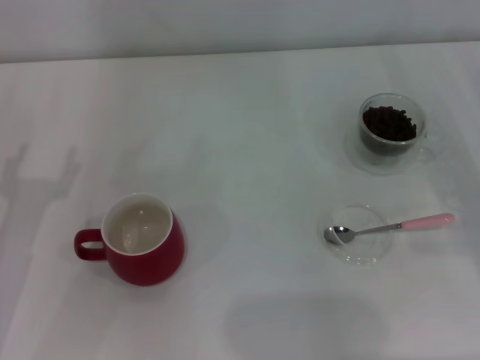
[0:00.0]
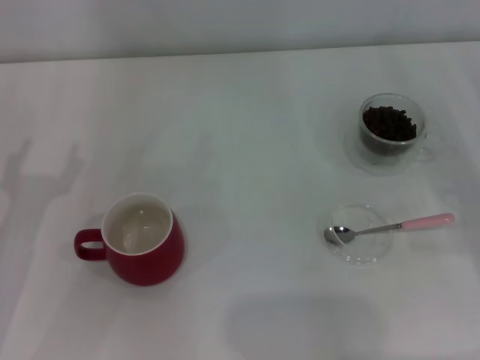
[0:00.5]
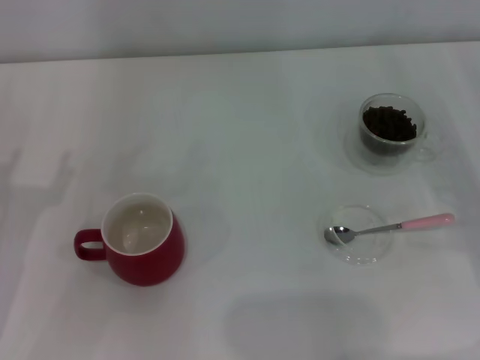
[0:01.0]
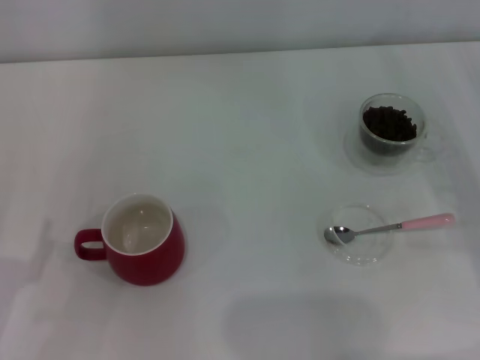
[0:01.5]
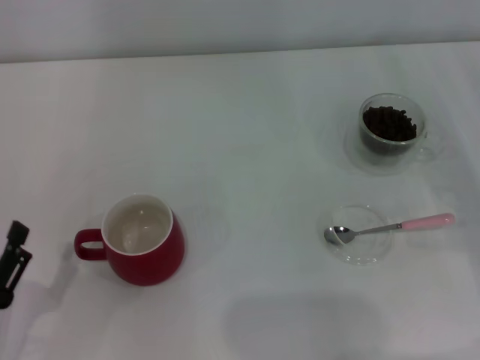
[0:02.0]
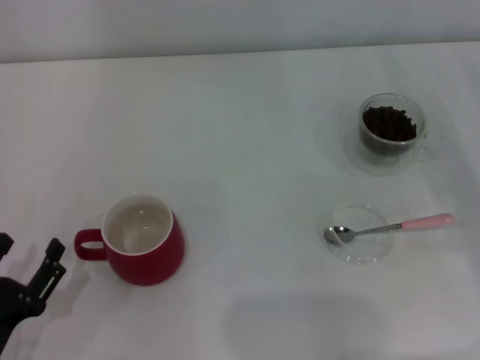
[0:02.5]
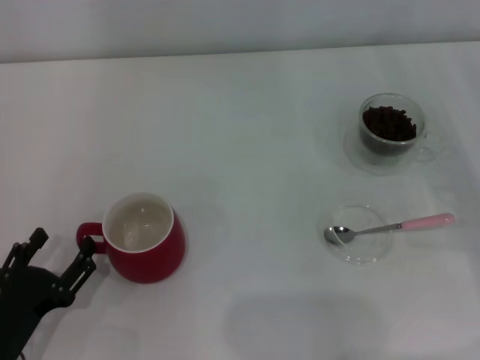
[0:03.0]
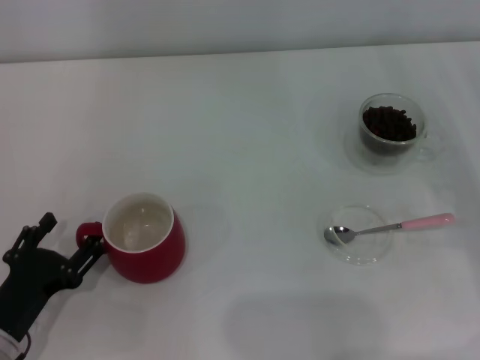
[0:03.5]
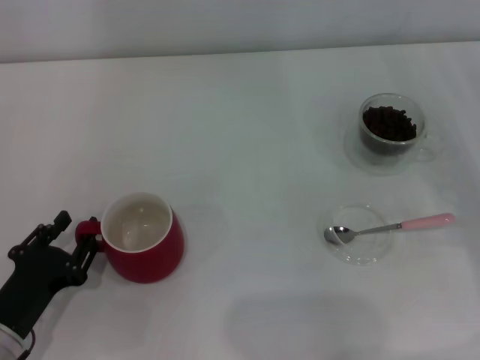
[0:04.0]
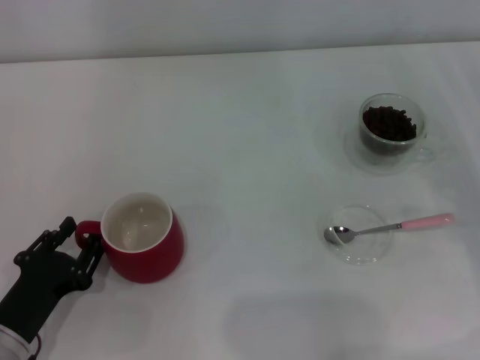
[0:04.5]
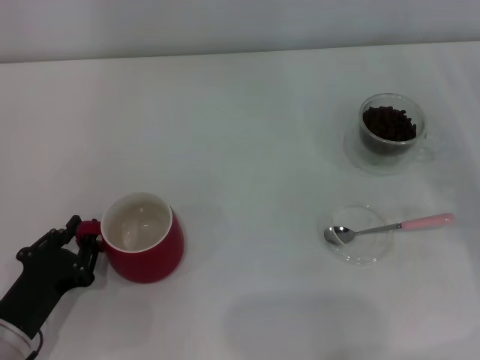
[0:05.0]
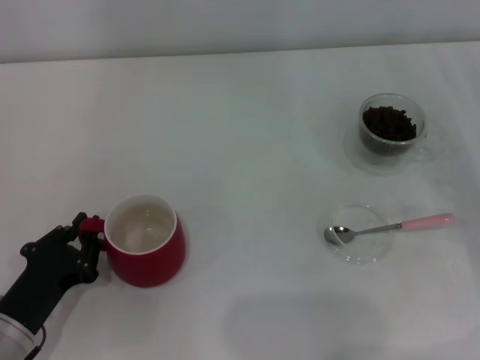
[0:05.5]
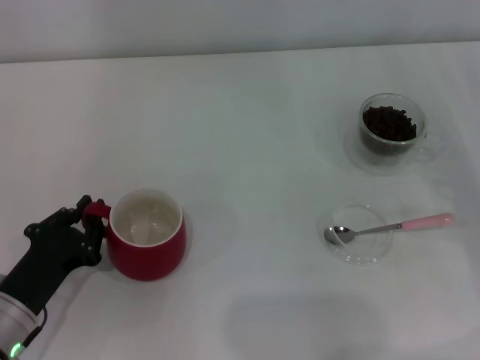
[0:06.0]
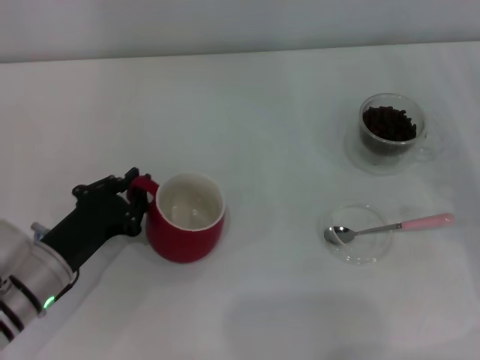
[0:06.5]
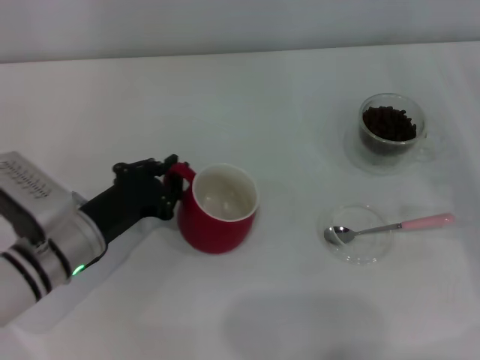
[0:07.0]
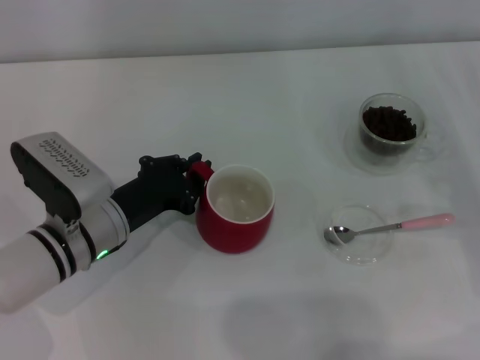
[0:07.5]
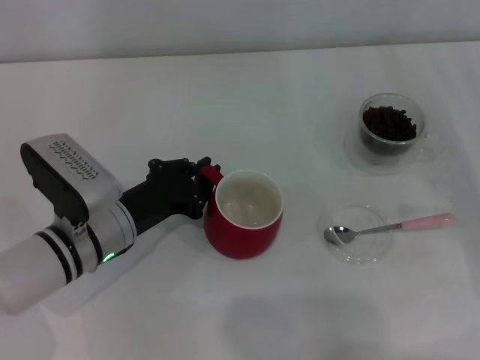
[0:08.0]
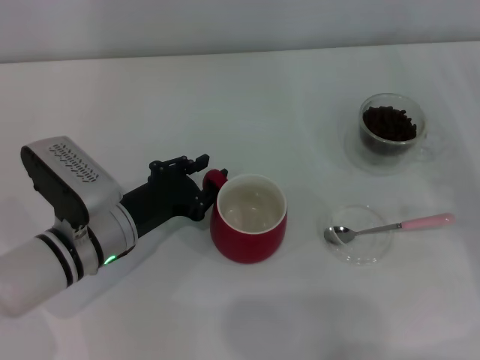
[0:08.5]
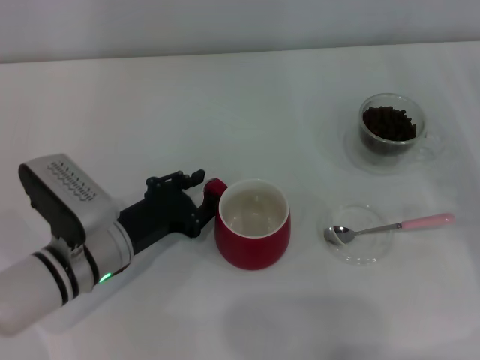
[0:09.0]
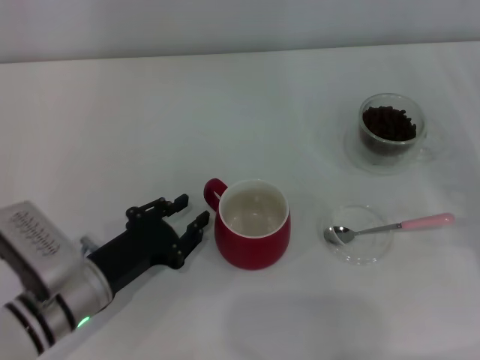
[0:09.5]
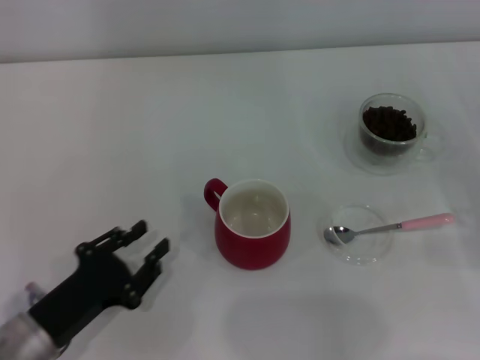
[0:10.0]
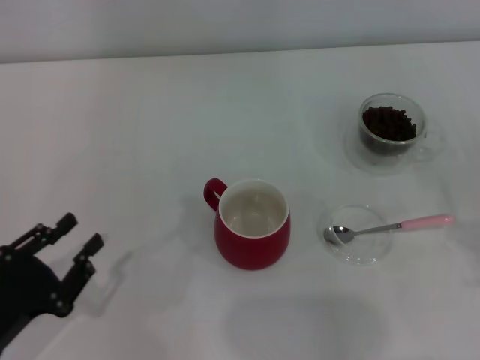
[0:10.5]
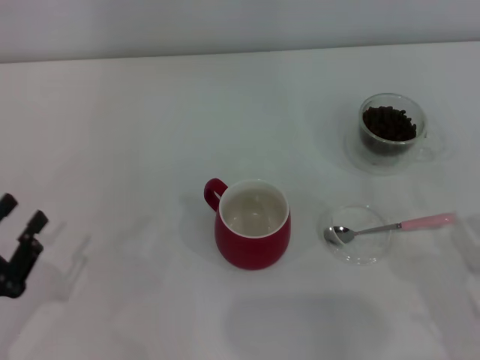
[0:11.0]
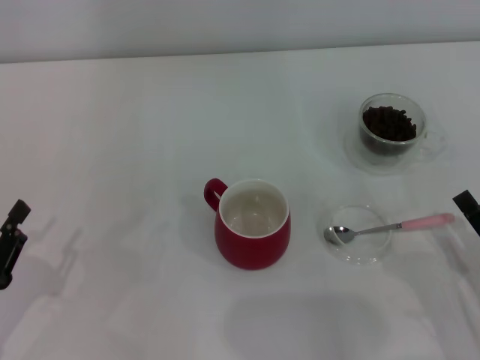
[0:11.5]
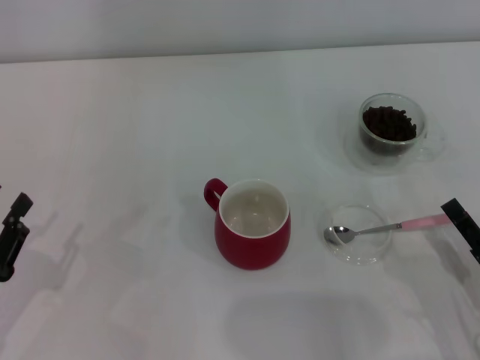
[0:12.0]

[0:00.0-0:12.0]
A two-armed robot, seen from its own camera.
Task of the whole recording: Use a pink spoon to take out the coffee beans from the glass and pour them into the red cup.
Step, 0:00.0 to 0:09.5: Move the cup to the center of view with the left gripper.
0:00.0 to 0:02.0: The left gripper is displaced backward and downward by some 15 cm.
0:02.0 to 0:04.0: The left gripper travels forward by roughly 5 cm.
0:04.0 to 0:06.0: The left gripper closes.
0:06.0 to 0:08.0: The left gripper moves forward and to the right, approximately 15 cm.
0:08.0 to 0:10.0: The left gripper shifts roughly 15 cm backward and to the left, and opens its fingers.
0:10.0 to 0:12.0: The left gripper is displaced to the left by roughly 10 cm, while the right gripper heads backward and to the left, covering roughly 15 cm.

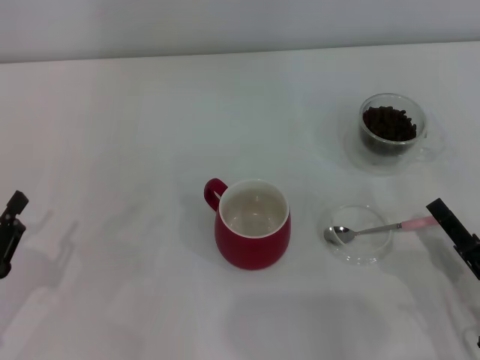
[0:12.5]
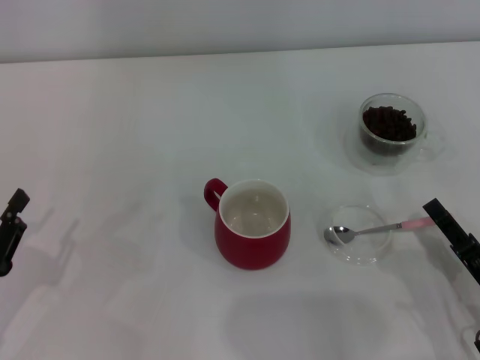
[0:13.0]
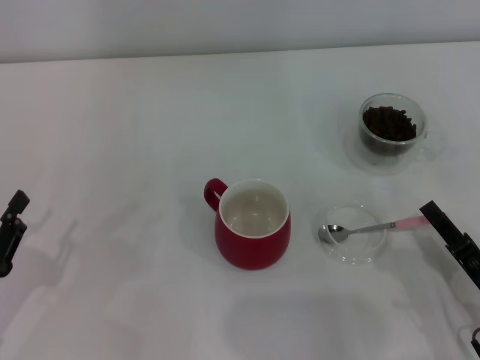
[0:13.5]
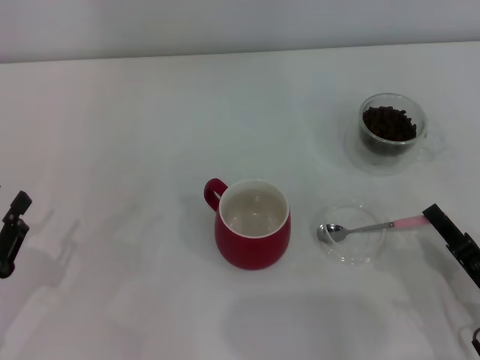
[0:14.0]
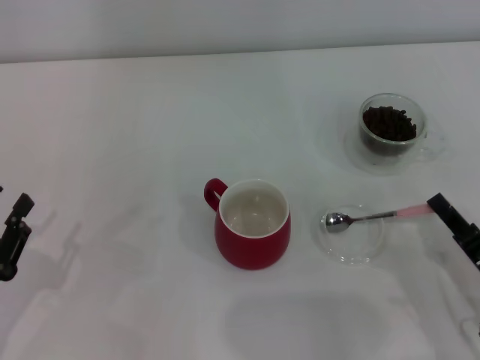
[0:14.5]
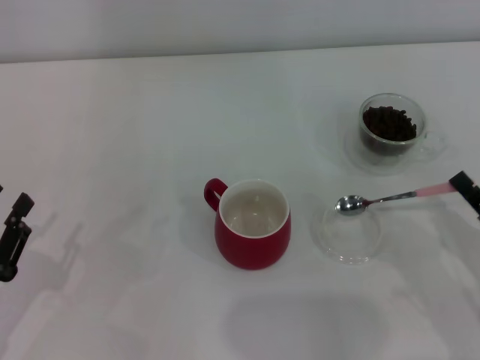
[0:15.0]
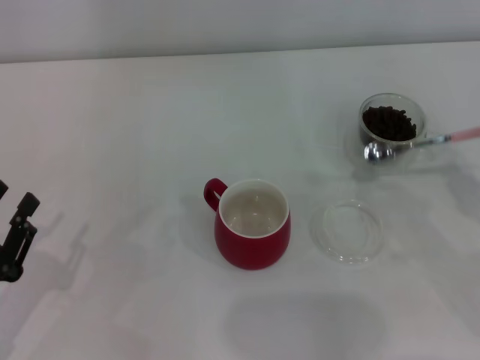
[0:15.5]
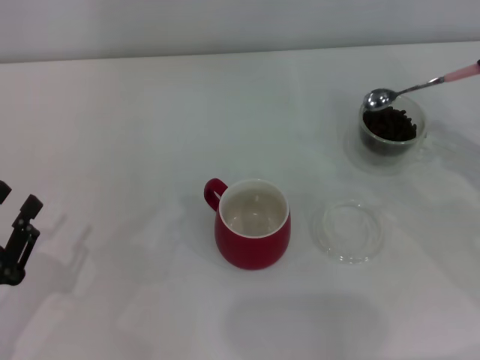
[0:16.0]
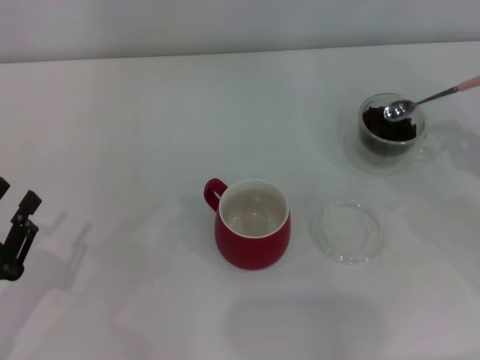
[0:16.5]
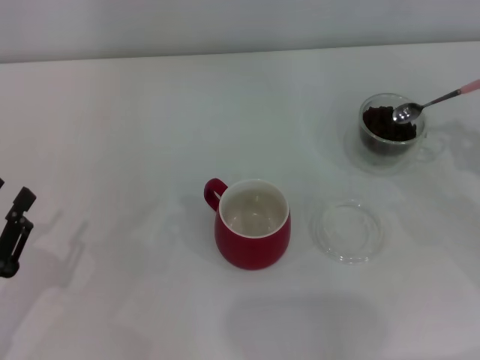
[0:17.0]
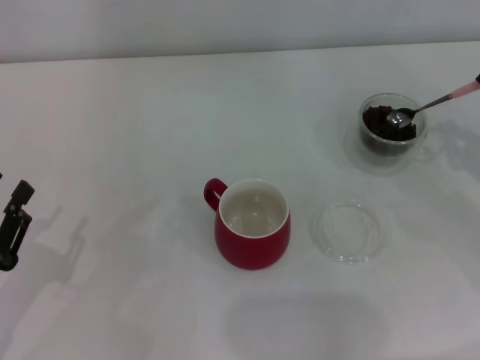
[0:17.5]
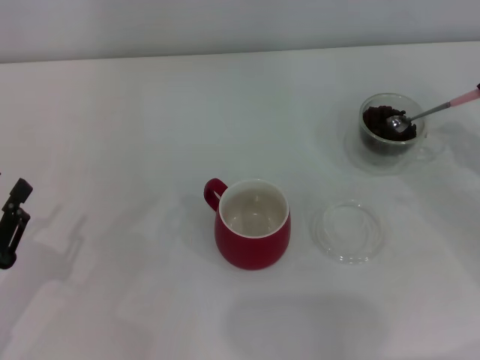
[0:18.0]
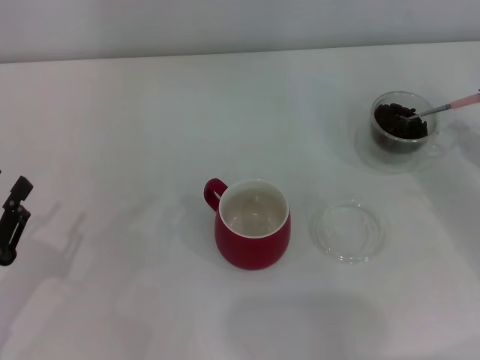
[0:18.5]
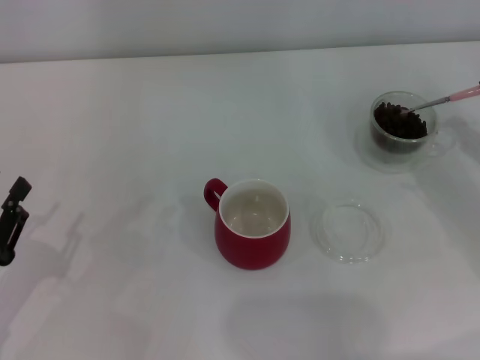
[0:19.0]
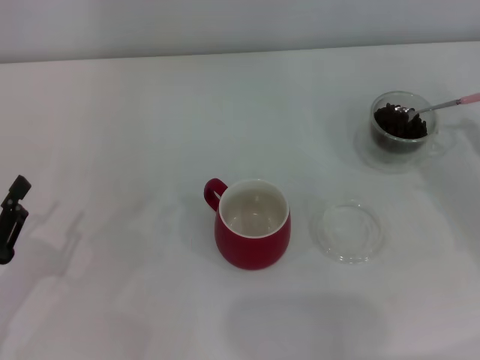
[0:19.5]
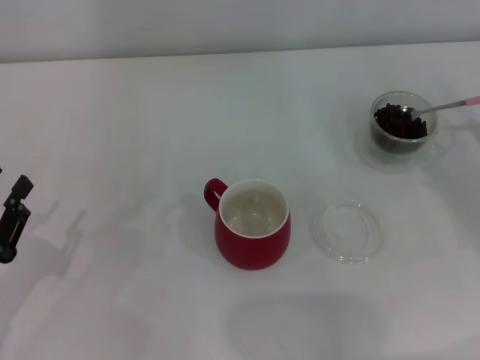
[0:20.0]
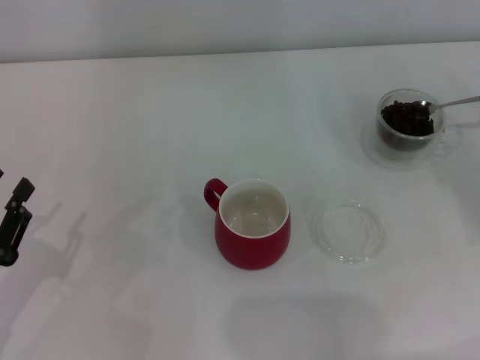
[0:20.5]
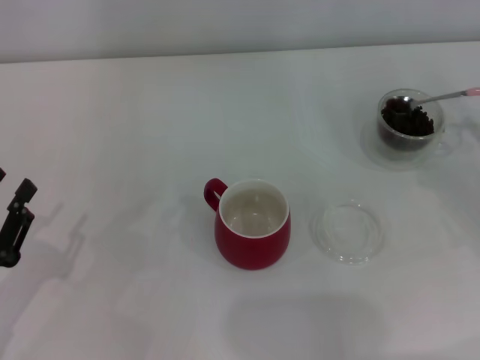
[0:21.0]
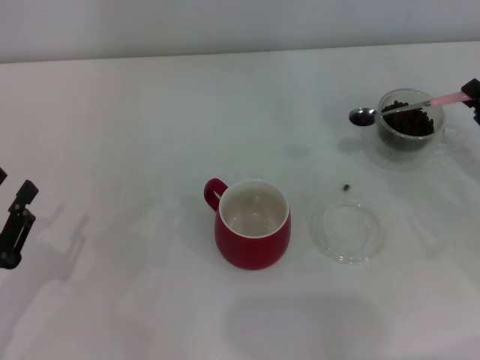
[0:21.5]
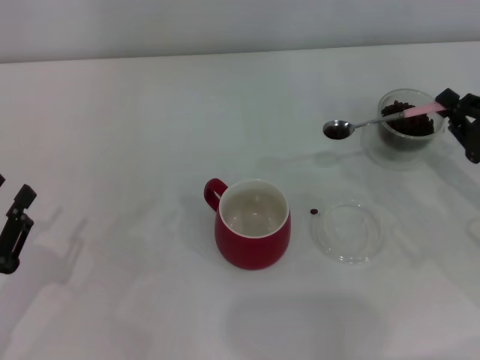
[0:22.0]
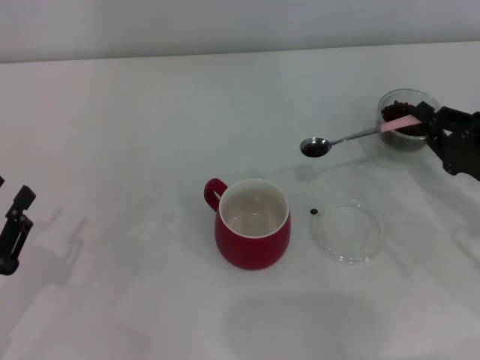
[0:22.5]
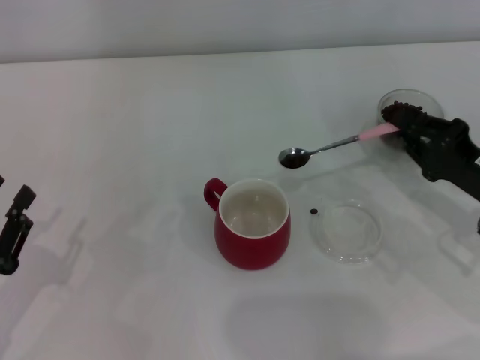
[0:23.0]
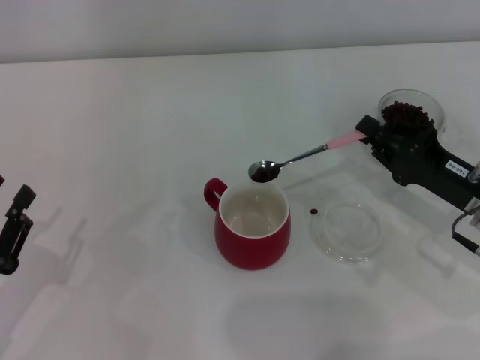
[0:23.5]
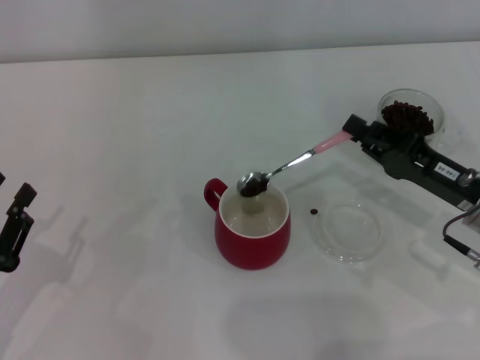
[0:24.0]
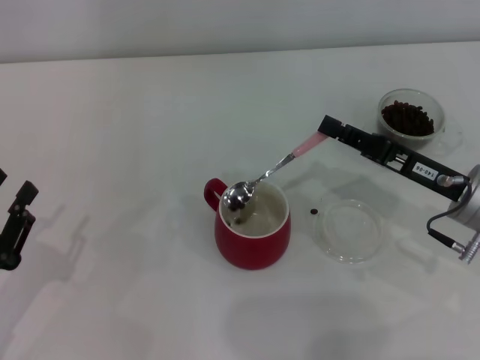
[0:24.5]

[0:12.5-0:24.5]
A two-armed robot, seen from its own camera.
Task of the whole recording: Use a pink spoon to take out the coffee beans from the glass and pour them into the red cup.
Step, 0:12.5 to 0:15.0: Pick up the spoon with the right gripper.
0:12.5 to 0:14.5: The right gripper closes its fingers.
0:14.5 to 0:16.5: The right gripper moves forward, to the right and upward, roughly 15 cm.
0:18.5 to 0:20.5: The grippers move only a little.
0:20.5 to 0:22.5: The right gripper heads to the left, covering approximately 10 cm.
0:22.5 to 0:24.5: The right gripper is displaced to the left by roughly 5 cm.

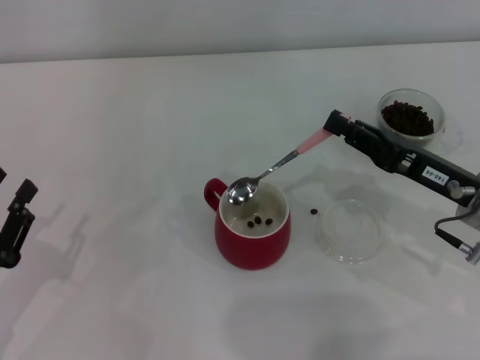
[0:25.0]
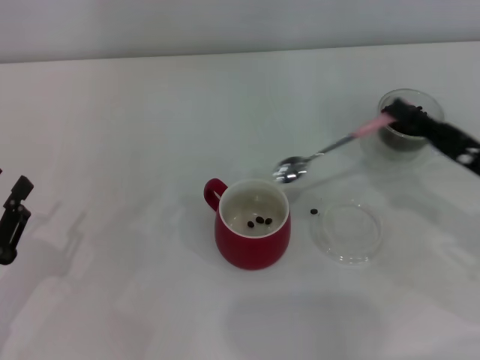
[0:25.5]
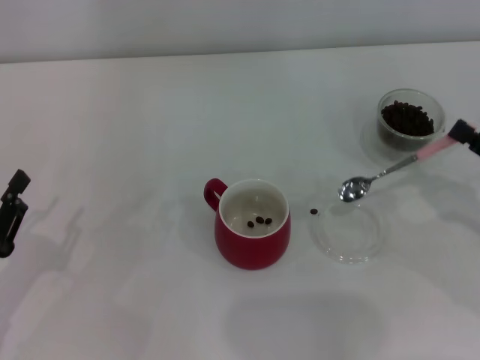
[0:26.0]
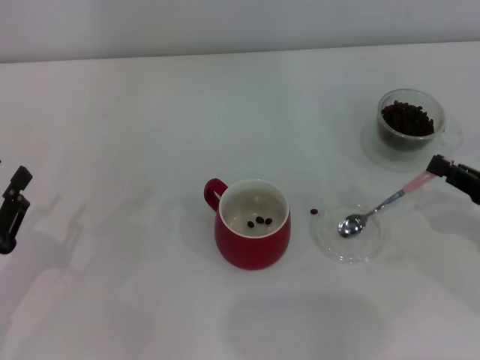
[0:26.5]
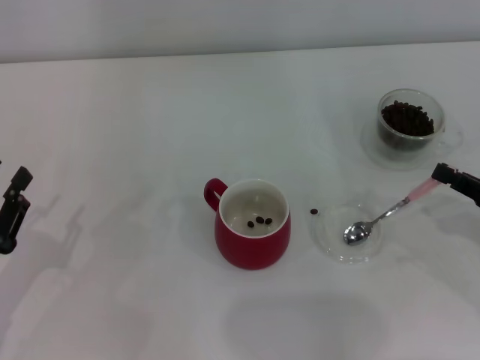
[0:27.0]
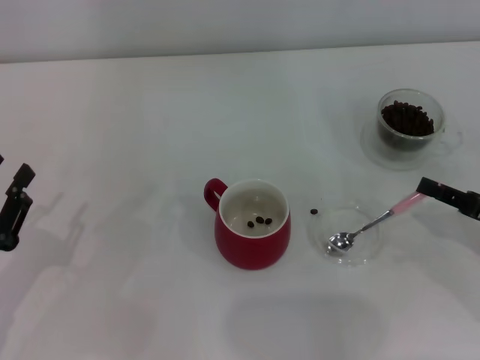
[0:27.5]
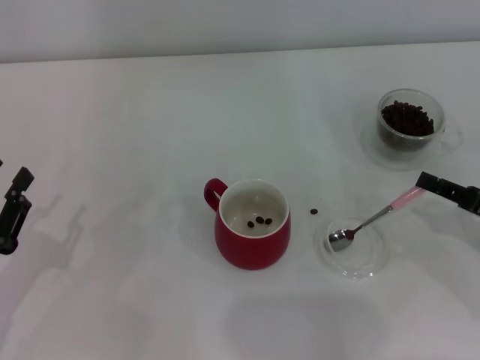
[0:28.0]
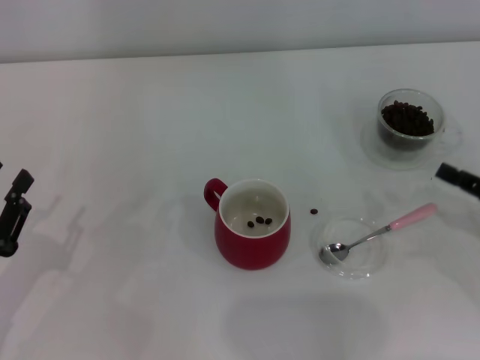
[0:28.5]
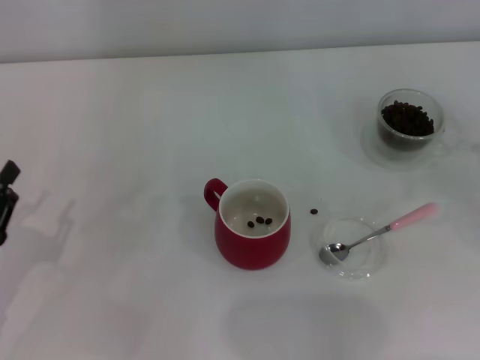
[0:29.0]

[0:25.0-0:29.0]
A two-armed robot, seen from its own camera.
Task of the whole recording: Use a pink spoon to take out the coffee beans from the glass and pour them into the red cup.
Step, 0:25.5 to 0:28.0: Place the spoon back in its original place with the right gripper.
0:25.0 to 0:27.0: The right gripper heads to the right and backward, covering roughly 10 cm.
0:27.0 to 0:29.0: The right gripper moves to the right, some 5 cm.
